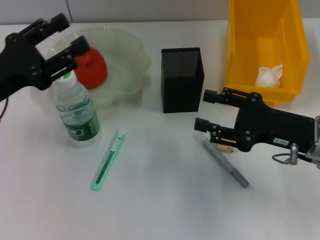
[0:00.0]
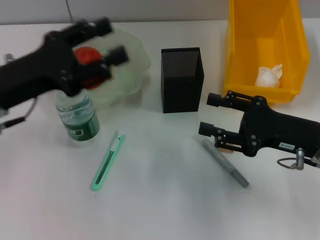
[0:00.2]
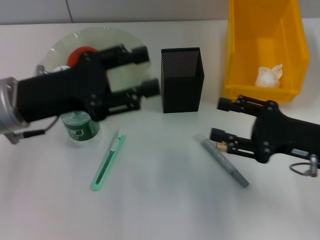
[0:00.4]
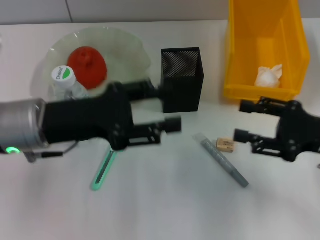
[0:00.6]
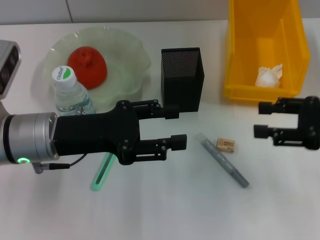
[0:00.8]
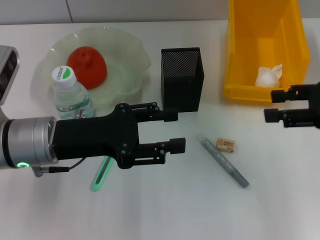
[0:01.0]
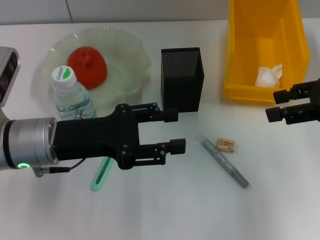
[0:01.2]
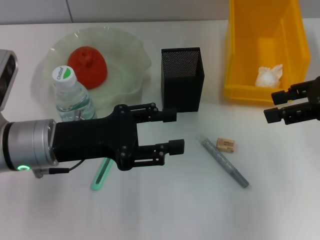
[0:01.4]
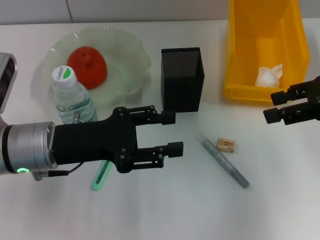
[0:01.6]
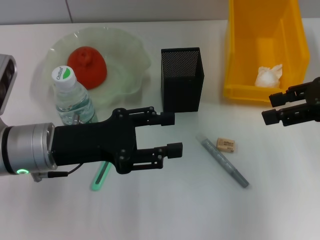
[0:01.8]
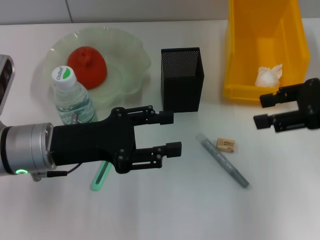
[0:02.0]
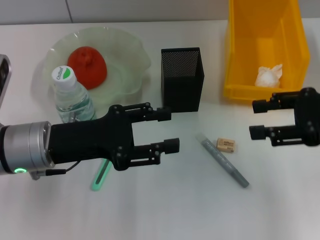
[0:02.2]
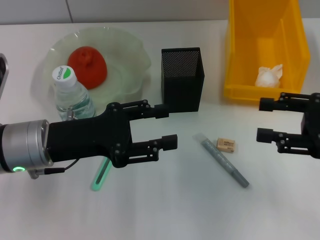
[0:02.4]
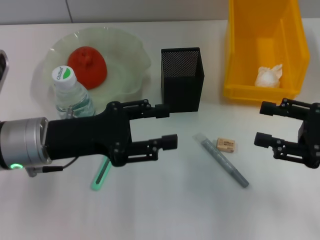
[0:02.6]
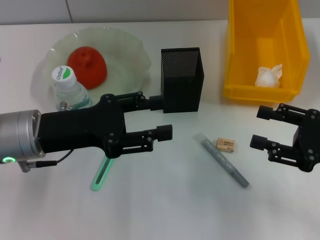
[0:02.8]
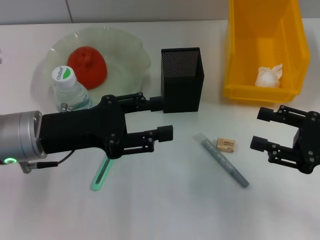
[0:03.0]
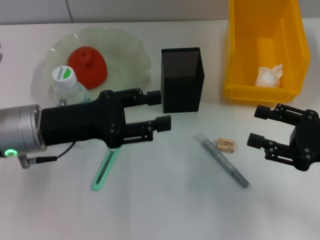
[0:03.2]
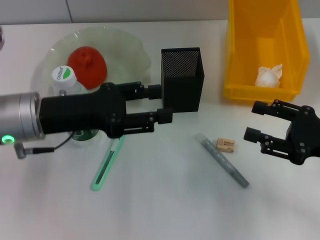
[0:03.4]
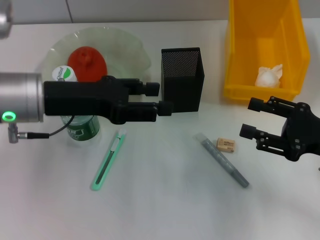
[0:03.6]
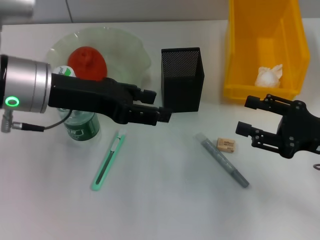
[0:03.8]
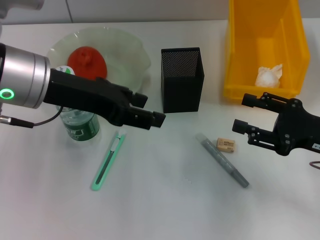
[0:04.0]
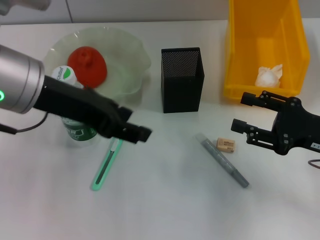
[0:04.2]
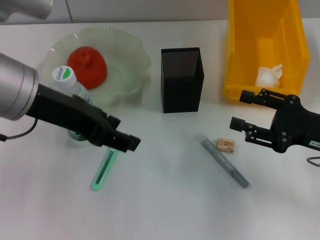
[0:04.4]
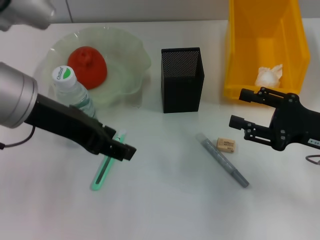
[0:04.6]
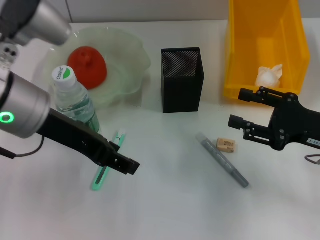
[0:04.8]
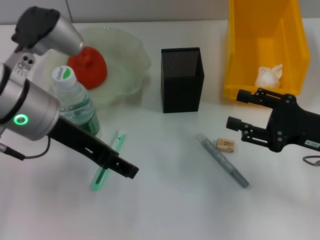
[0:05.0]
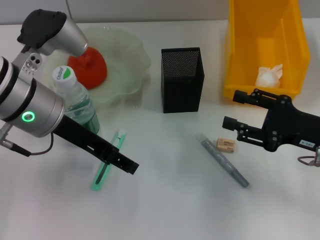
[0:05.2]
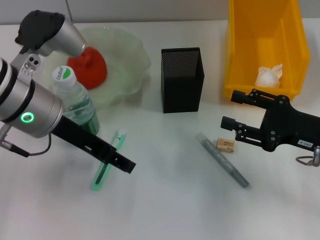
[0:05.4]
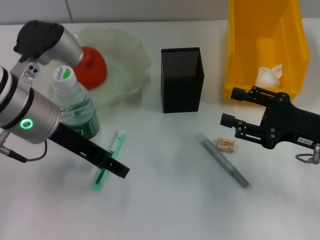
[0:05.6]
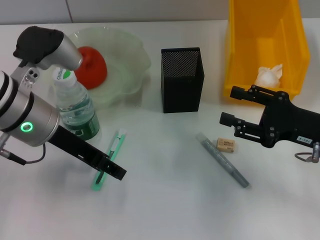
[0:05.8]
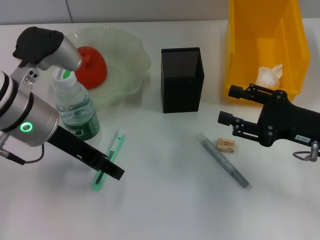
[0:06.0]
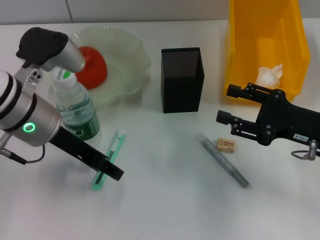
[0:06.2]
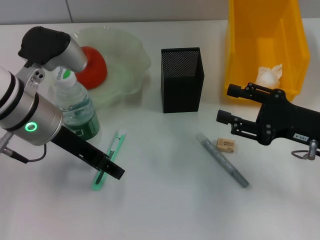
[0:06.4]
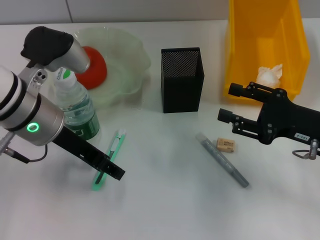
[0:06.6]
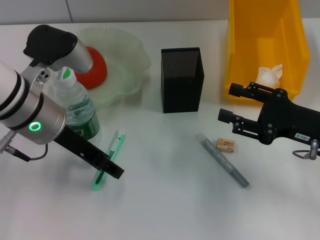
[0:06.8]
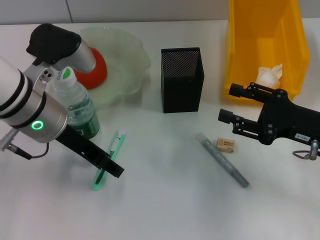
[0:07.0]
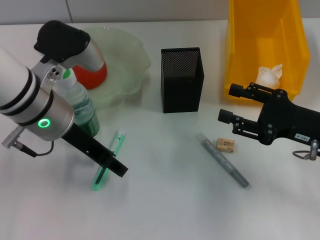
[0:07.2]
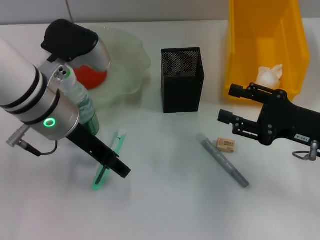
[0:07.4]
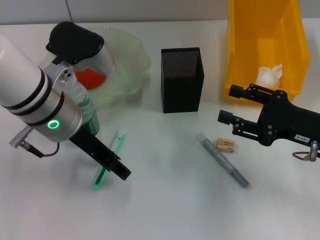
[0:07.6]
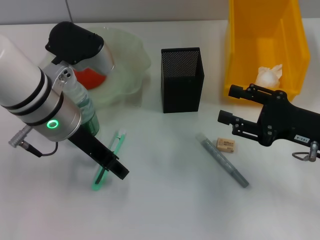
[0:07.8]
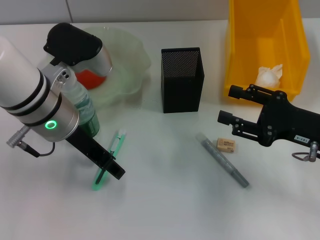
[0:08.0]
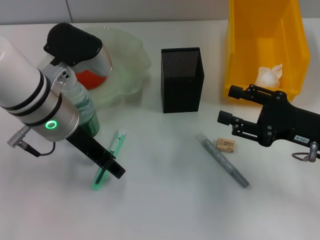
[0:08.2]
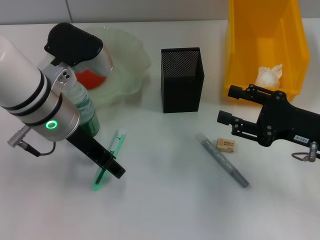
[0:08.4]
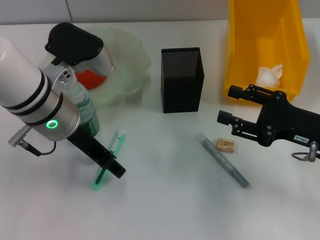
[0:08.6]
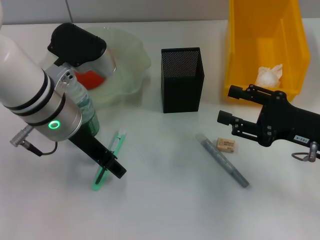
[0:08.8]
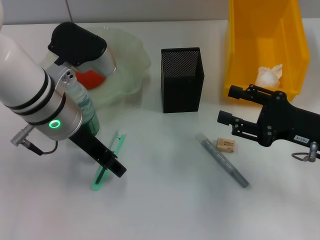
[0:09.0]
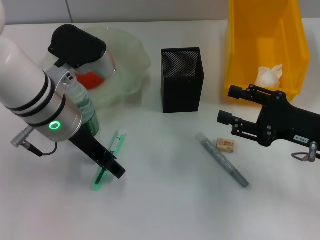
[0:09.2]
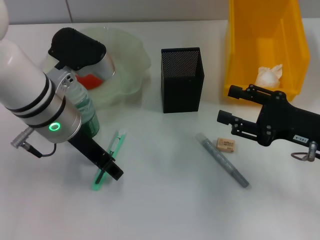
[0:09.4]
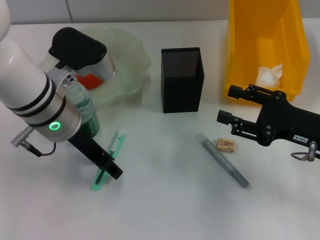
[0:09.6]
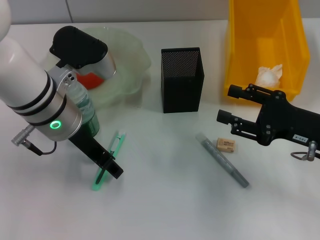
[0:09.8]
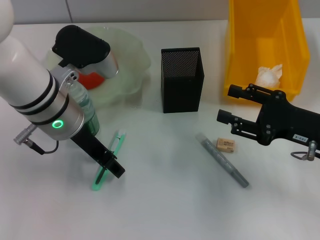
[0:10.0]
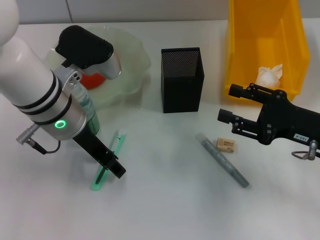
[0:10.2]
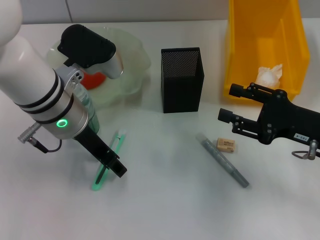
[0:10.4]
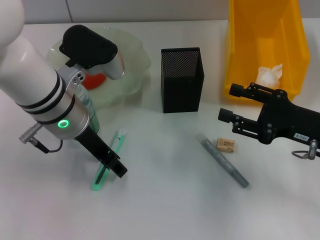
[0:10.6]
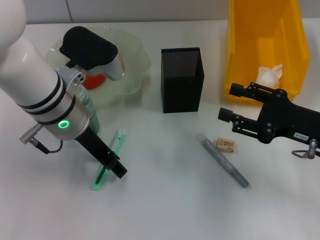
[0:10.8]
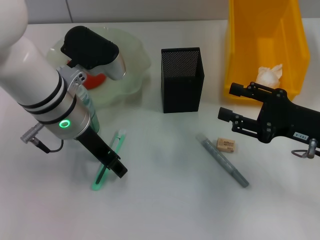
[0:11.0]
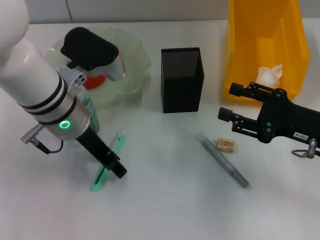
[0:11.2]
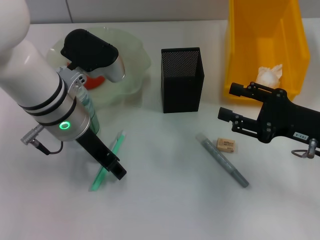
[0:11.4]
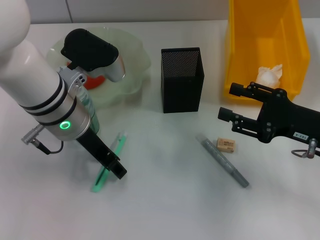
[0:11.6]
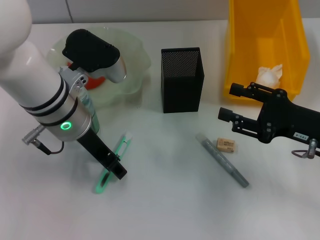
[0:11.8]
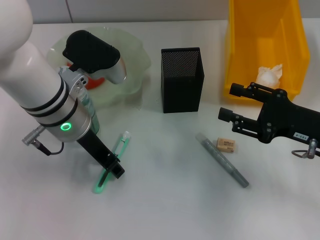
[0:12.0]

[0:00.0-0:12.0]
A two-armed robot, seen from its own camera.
0:00.0 to 0:01.6: The right gripper shifts some 15 cm upward and to the right, while the left gripper is displaced to the right by approximately 10 cm.
0:01.6 to 0:03.0: The right gripper heads downward and backward, covering approximately 15 cm.
0:03.0 to 0:04.4: The left gripper goes roughly 10 cm upward.
0:04.4 to 0:06.0: The left gripper moves downward, approximately 10 cm.
0:06.0 to 0:07.6: There are only small adjustments of the grippers.
0:07.6 to 0:09.0: Both grippers stay about where they are.
0:09.0 to 0:10.4: Both grippers stay about where they are.
0:10.4 to 0:12.0: The two grippers keep their place.

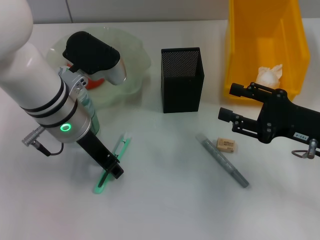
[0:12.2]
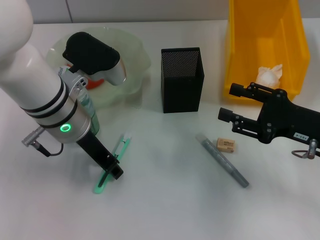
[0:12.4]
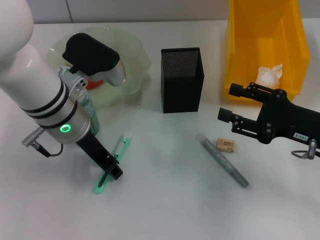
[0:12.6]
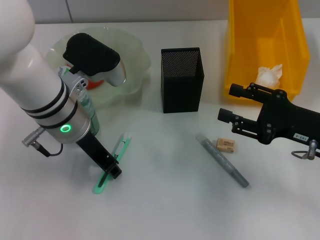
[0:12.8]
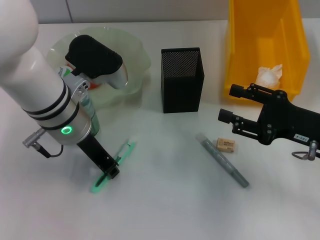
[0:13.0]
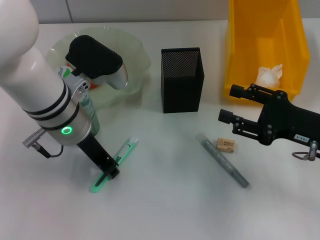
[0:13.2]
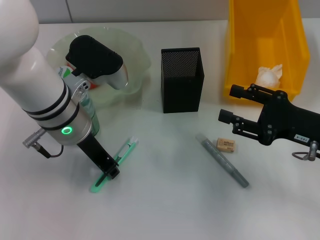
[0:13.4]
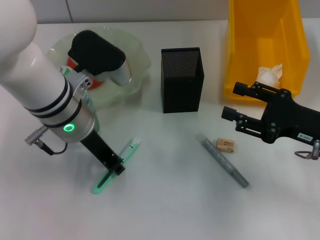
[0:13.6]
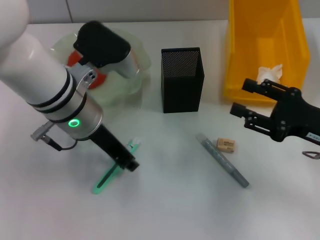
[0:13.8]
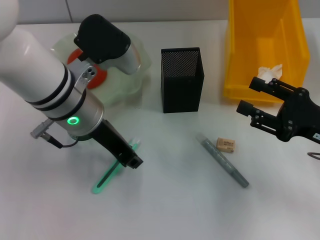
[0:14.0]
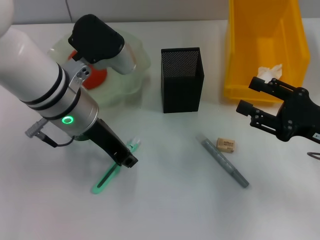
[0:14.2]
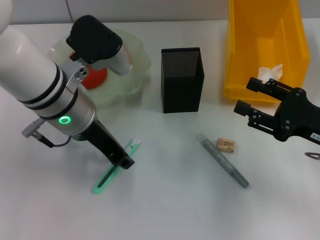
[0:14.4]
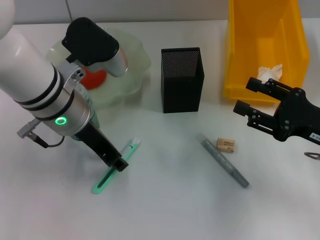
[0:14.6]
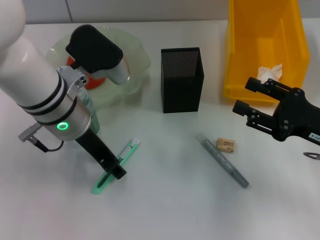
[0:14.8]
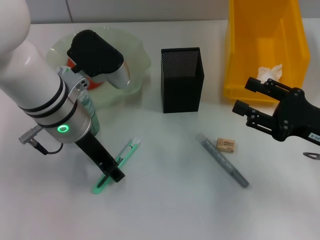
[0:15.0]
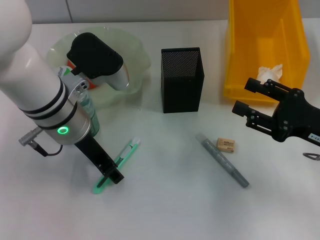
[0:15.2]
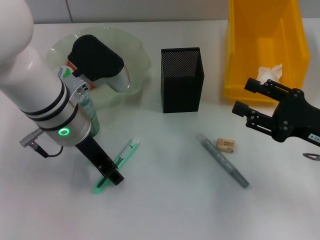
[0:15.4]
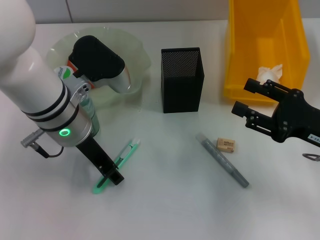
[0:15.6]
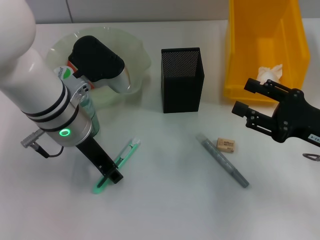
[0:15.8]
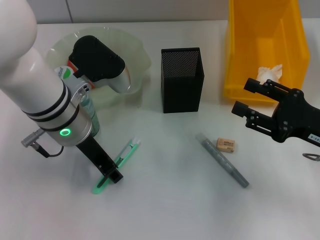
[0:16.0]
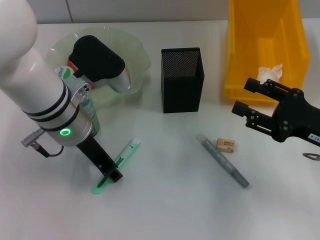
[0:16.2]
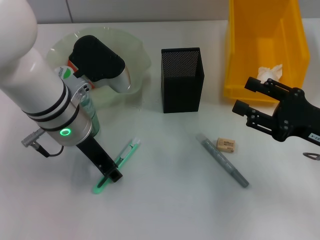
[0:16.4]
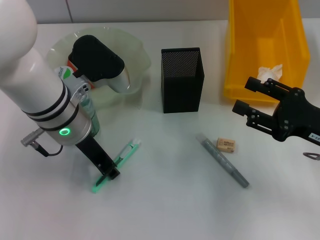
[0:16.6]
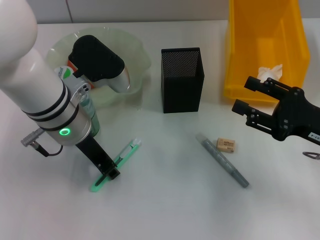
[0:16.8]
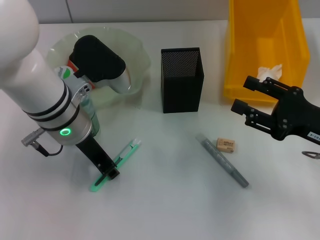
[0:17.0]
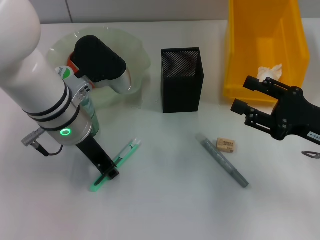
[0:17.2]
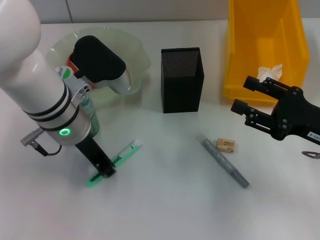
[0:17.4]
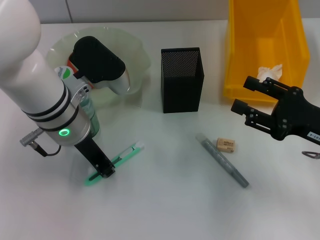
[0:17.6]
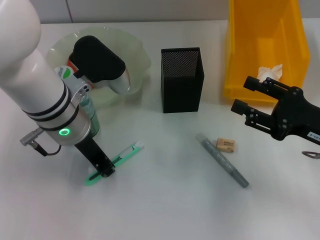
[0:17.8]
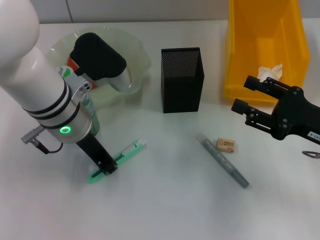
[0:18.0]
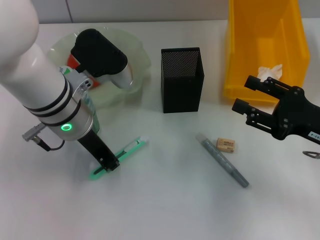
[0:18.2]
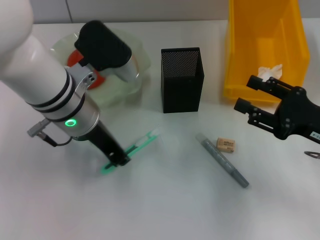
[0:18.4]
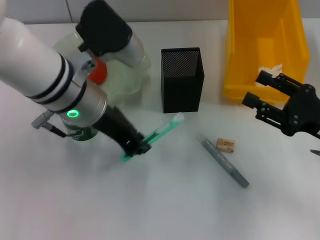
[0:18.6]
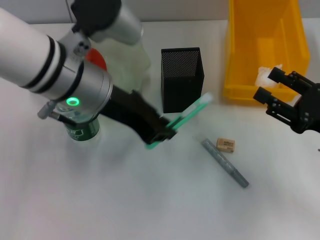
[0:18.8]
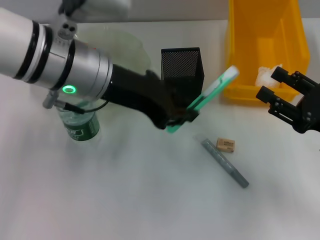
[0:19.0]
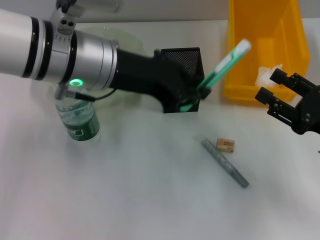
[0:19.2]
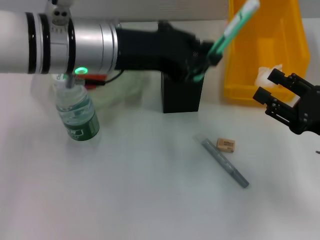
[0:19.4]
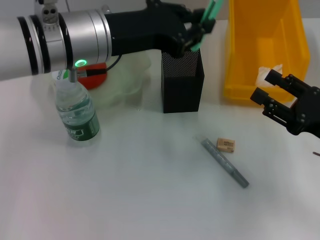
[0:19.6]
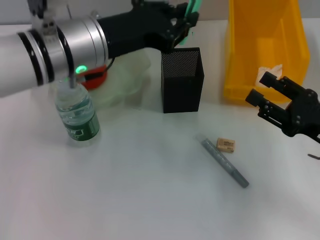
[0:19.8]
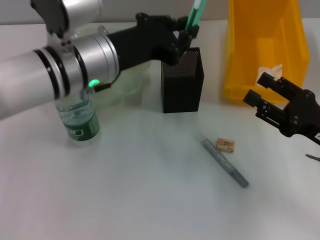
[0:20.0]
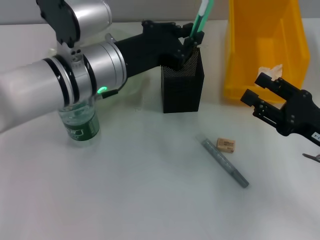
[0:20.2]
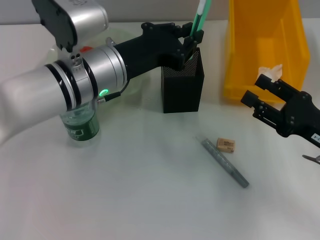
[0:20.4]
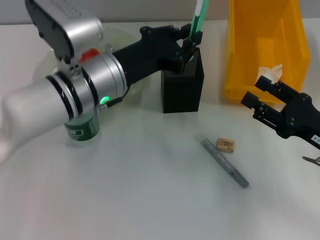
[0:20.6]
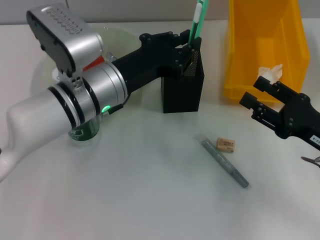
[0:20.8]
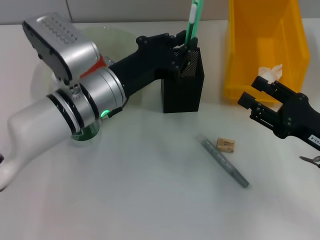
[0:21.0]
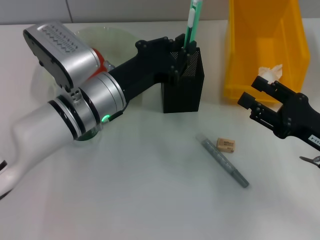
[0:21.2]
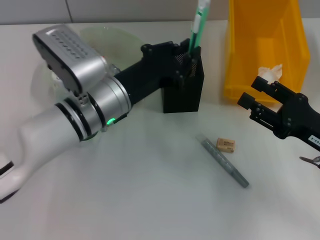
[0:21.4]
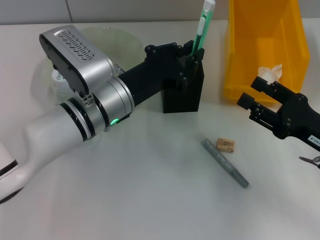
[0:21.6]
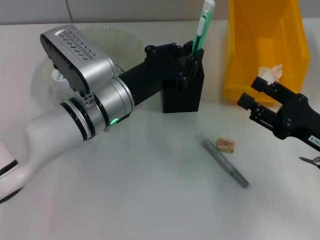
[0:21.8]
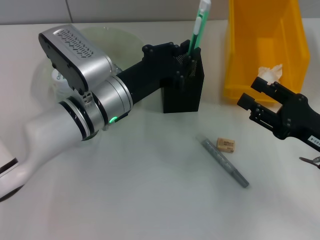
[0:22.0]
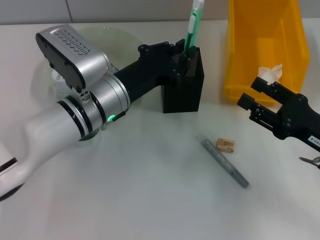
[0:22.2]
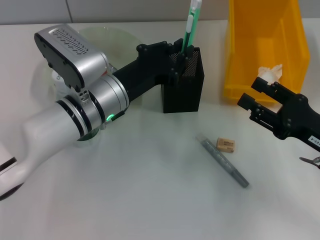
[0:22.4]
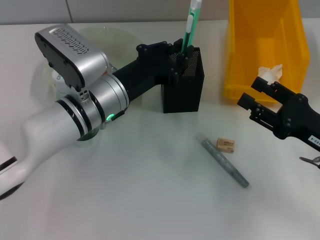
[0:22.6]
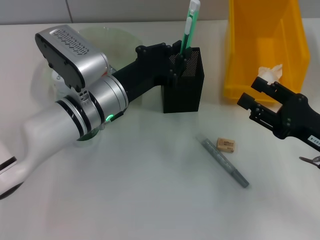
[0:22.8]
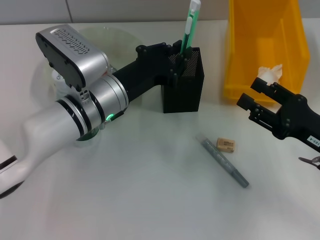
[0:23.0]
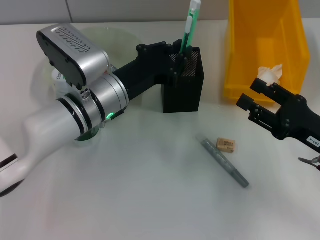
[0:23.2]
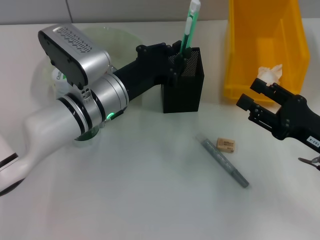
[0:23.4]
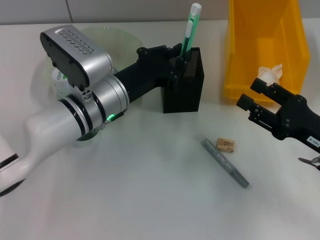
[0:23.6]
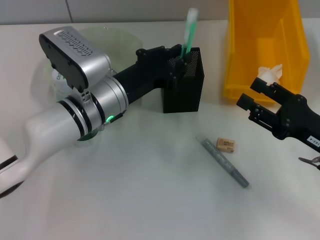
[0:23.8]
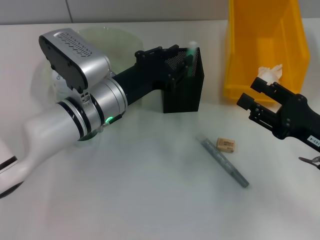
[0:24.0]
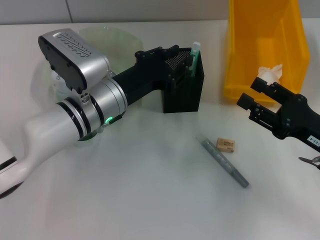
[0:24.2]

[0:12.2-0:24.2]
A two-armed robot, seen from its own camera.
Step, 0:12.2 to 0:17.2: Grab the blue utility knife with the left hand.
0:12.2 to 0:13.8: There are only small adjustments of the grippers.
0:13.8 to 0:15.2: The left gripper opens its fingers.
0:15.2 to 0:16.6: Both grippers stay put.
0:16.6 to 0:18.2: The left gripper closes up.
0:19.8 to 0:21.2: The left gripper moves downward, about 10 cm.
0:21.2 to 0:22.6: The grippers make only small movements.
0:22.6 to 0:24.2: Both grippers stay about where they are.
